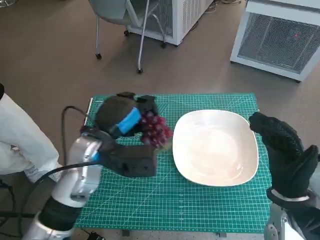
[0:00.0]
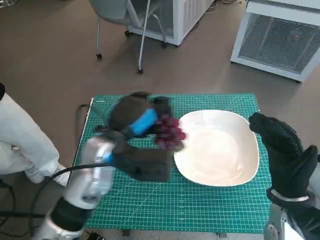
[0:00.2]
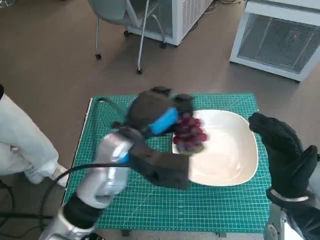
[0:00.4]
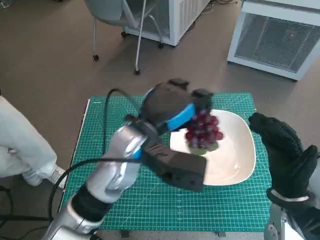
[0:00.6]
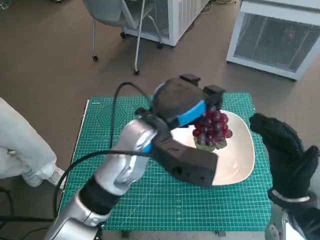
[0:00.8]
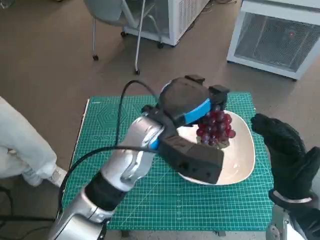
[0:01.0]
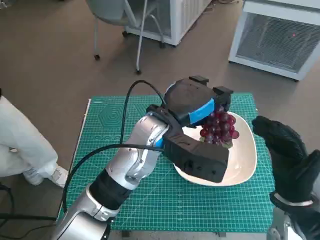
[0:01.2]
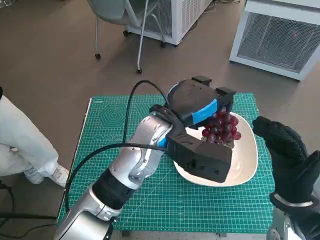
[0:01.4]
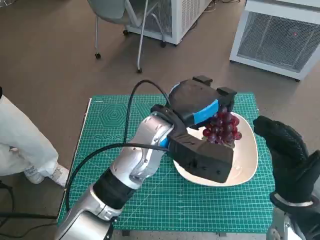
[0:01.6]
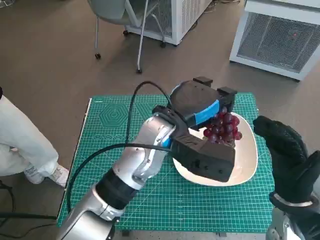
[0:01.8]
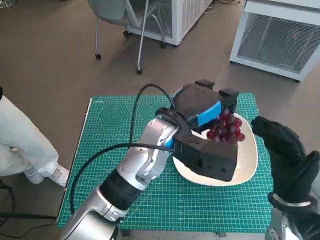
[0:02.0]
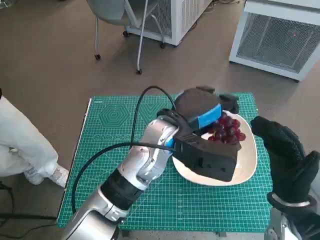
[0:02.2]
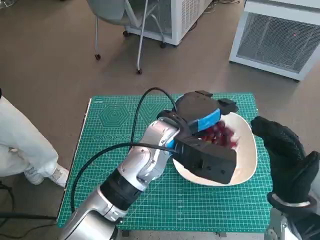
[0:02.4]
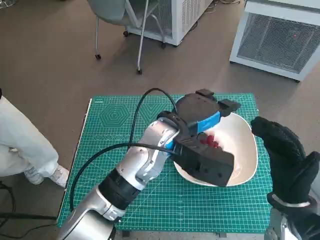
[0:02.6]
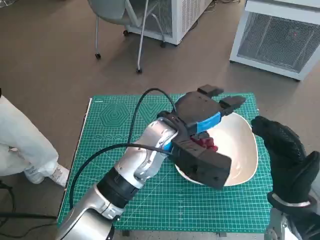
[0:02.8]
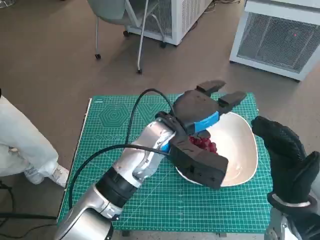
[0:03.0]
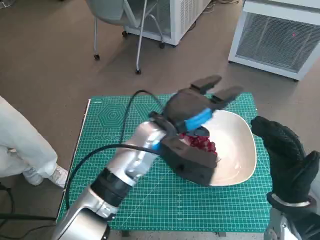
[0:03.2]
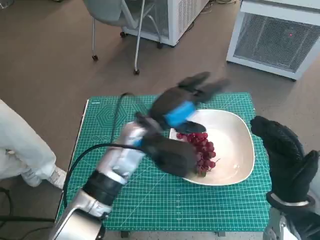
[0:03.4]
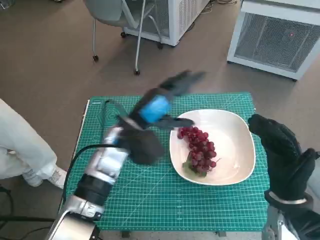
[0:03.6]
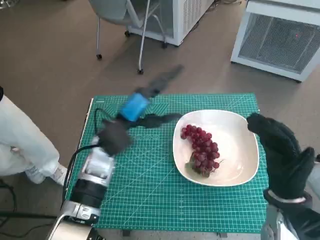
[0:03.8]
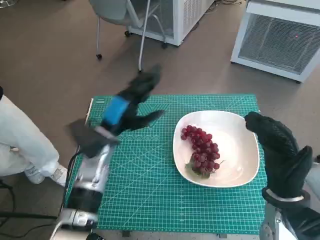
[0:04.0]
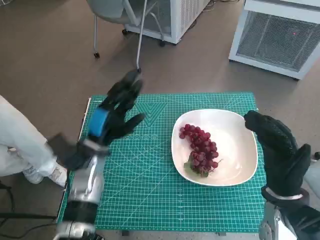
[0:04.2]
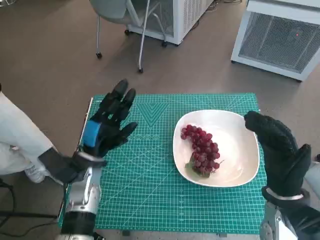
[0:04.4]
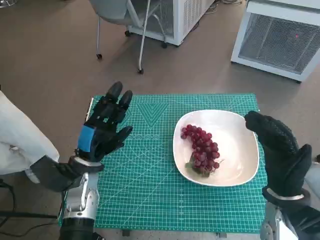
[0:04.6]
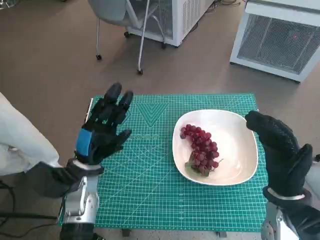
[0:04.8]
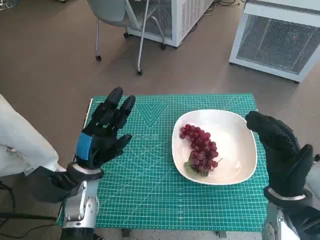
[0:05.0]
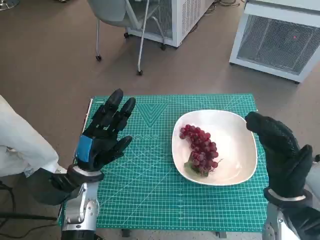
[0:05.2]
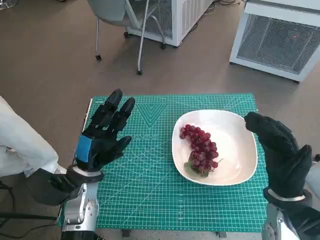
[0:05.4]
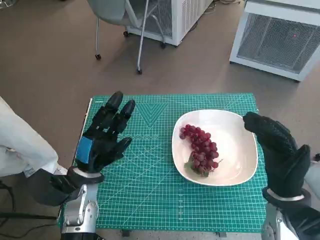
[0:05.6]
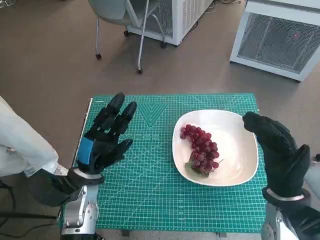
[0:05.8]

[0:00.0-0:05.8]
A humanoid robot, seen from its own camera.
Task of the whole recording: Pick up the grapes and put them on the plate.
Step, 0:00.0 to 0:02.6: Place the grapes in the plate with left hand.
0:00.0 to 0:01.4: The left hand heads to the right, covering about 10 cm.
0:01.4 to 0:02.8: The hands stay close to where they were, moving slightly.
0:02.8 to 0:04.4: The left hand travels to the left and downward by some 20 cm.
0:04.4 to 0:05.8: The hands move only a little.
